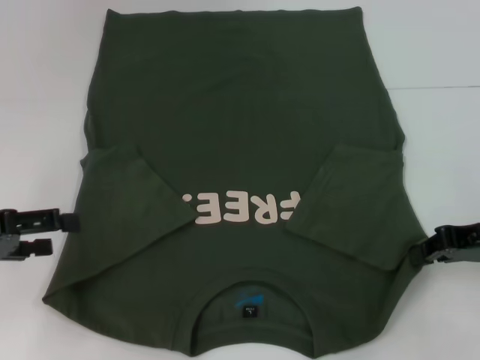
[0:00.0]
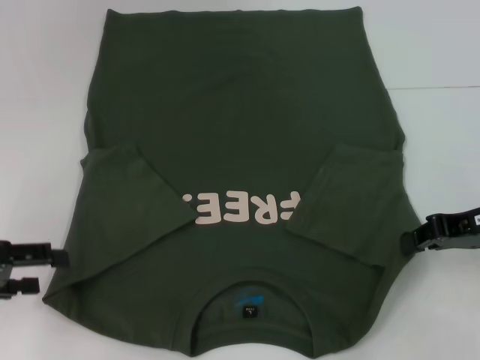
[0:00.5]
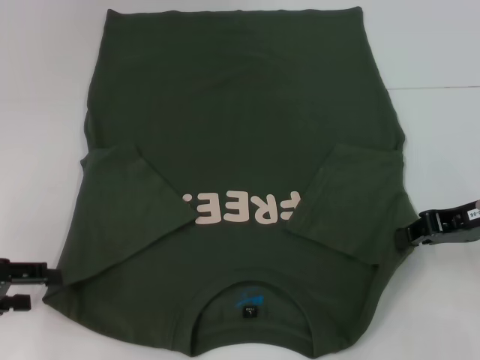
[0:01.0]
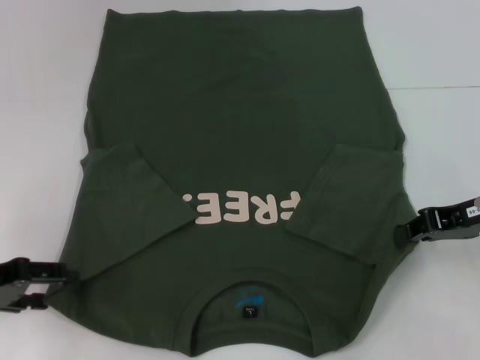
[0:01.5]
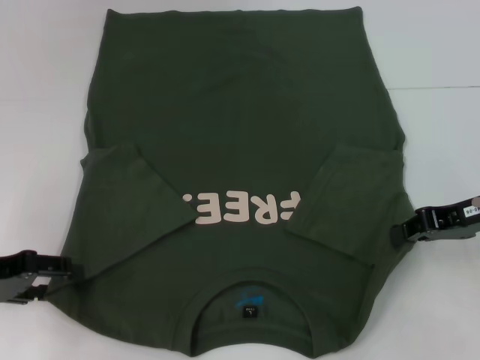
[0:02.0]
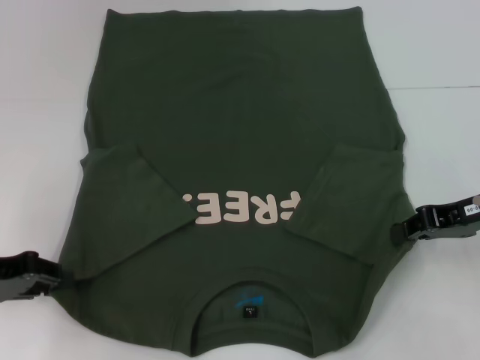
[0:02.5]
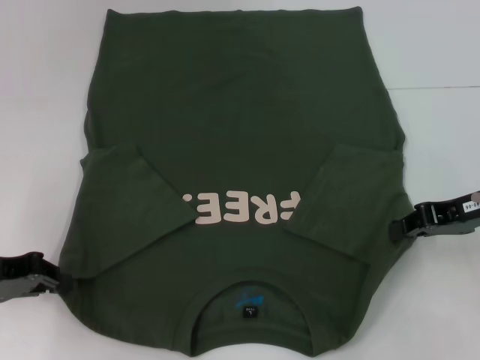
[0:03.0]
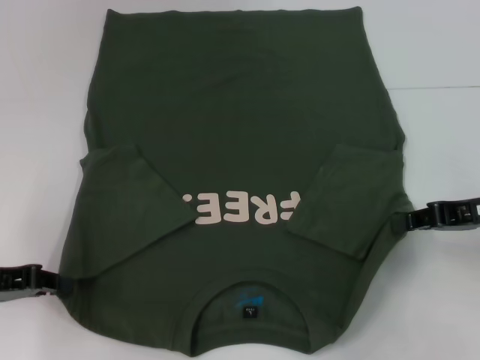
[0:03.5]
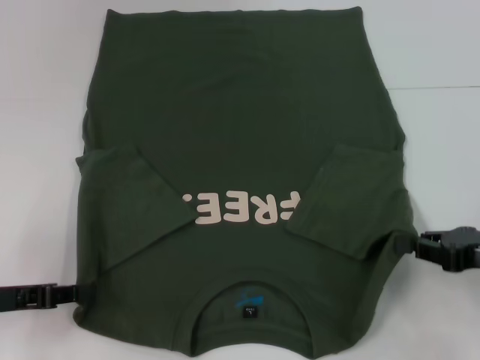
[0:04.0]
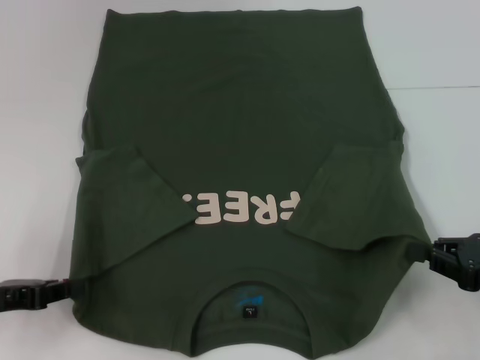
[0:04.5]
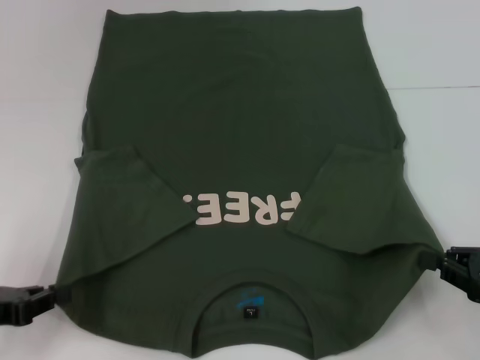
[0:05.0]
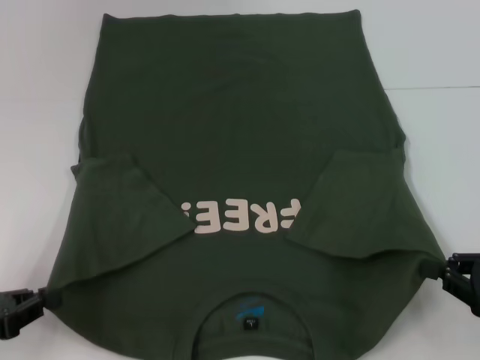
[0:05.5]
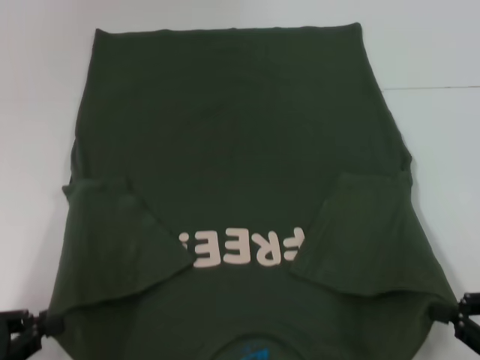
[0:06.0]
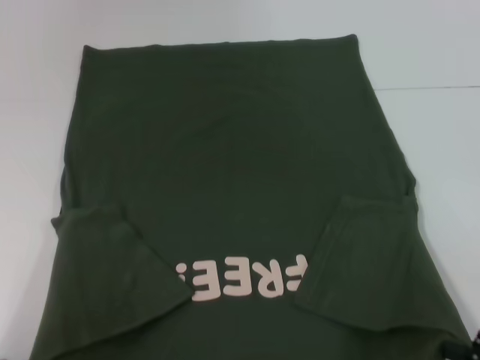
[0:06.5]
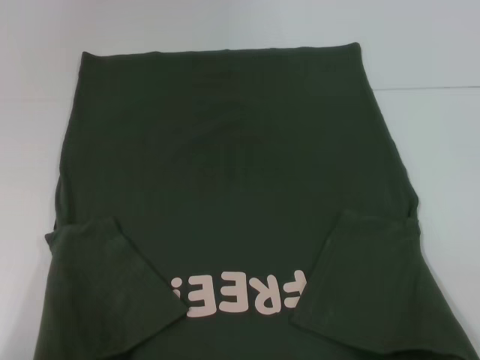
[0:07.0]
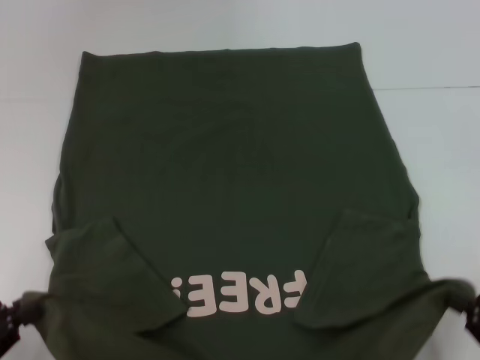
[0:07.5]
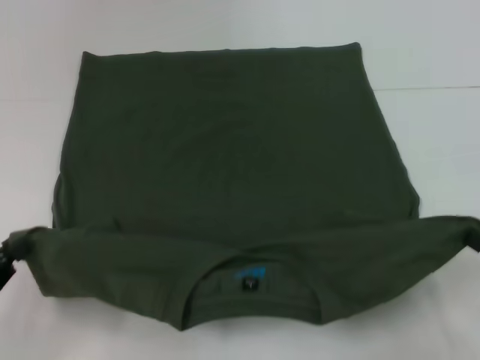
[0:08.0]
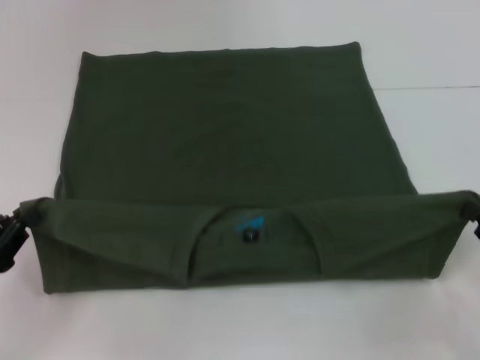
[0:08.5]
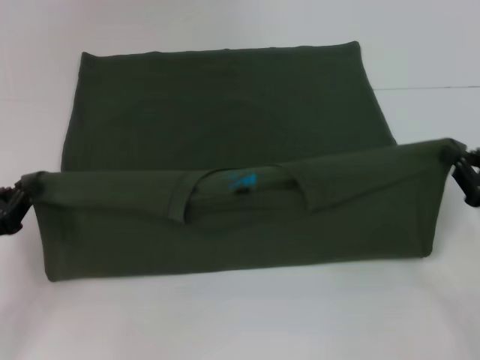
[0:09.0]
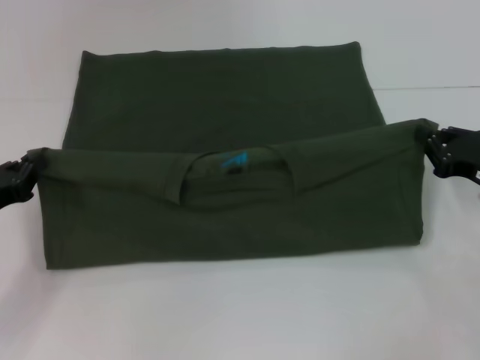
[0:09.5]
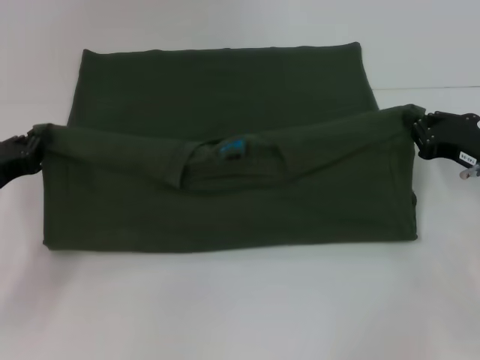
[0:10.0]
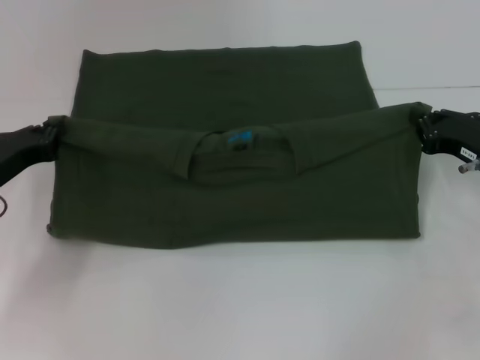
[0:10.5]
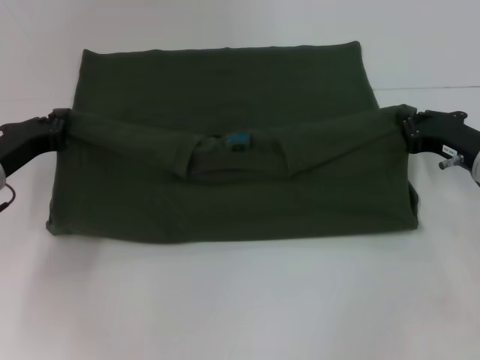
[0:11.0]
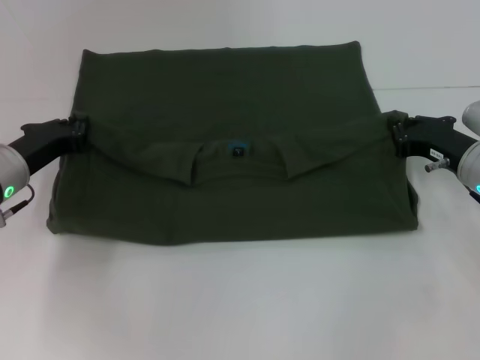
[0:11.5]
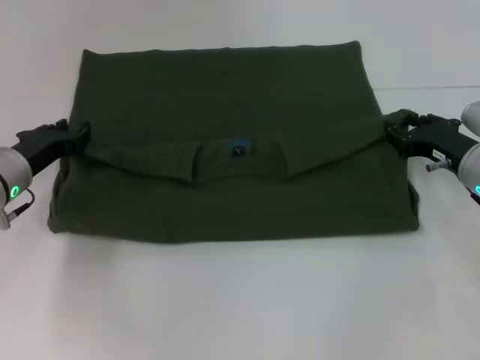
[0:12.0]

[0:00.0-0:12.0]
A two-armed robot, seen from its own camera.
Step, 0:00.0 to 0:05.0: Grab the bottom left corner with your left hand.
0:00.0 to 0:02.0: The grippers stay close to where they were, moving slightly.
0:02.0 to 0:04.0: The right gripper moves backward and downward, about 10 cm. The left gripper shifts by approximately 5 cm, and closes up.
0:04.0 to 0:06.0: Both grippers move backward, roughly 10 cm.
0:06.0 to 0:08.0: The right gripper travels backward and back again, some 10 cm each way.
0:08.0 to 0:10.0: Both grippers move forward, roughly 15 cm.
0:10.0 to 0:12.0: The left gripper shifts roughly 10 cm forward and to the right.

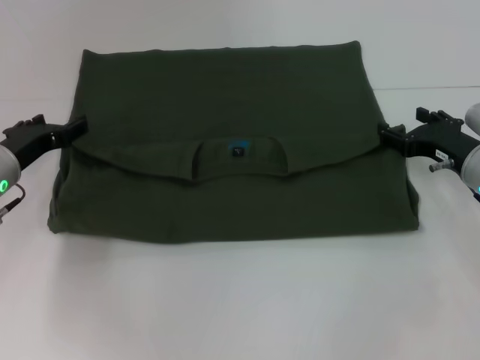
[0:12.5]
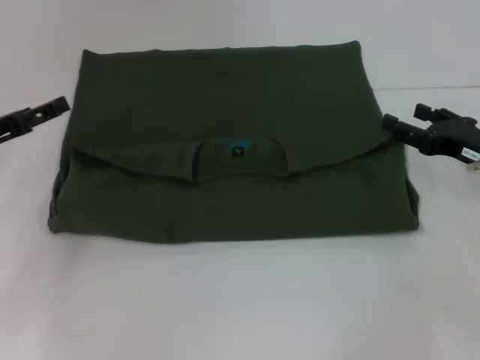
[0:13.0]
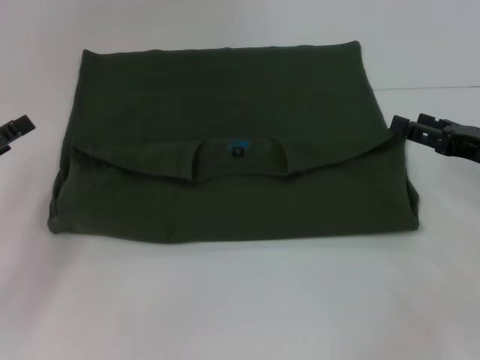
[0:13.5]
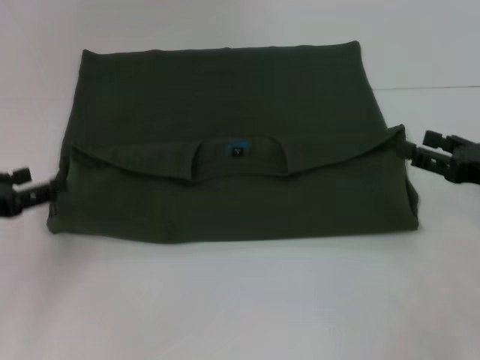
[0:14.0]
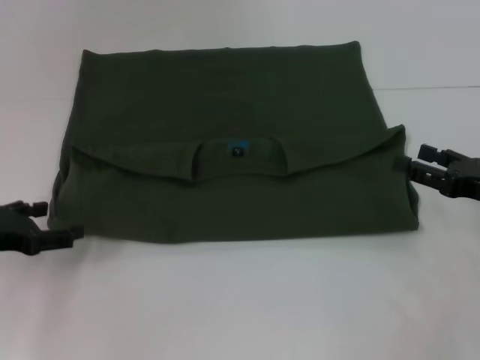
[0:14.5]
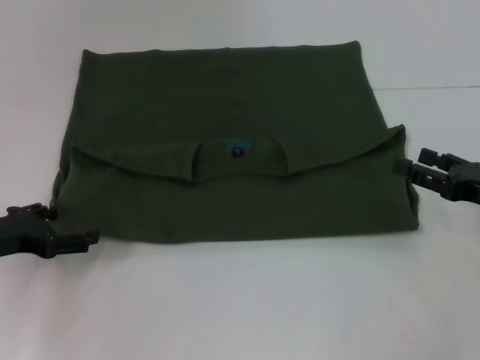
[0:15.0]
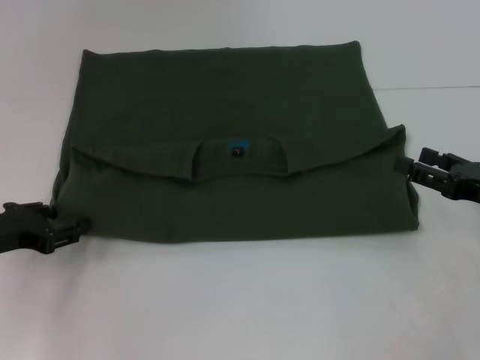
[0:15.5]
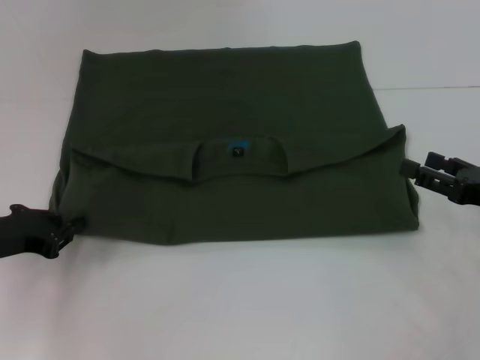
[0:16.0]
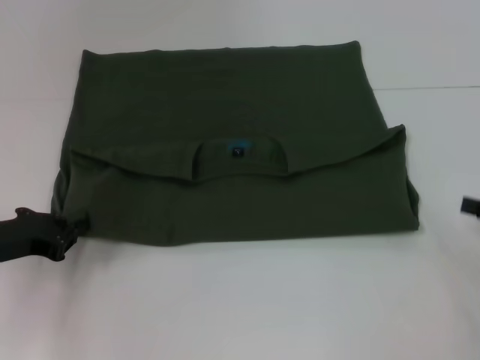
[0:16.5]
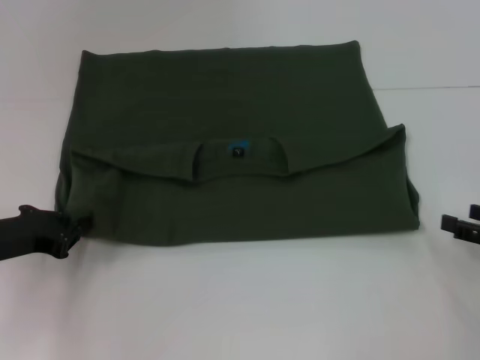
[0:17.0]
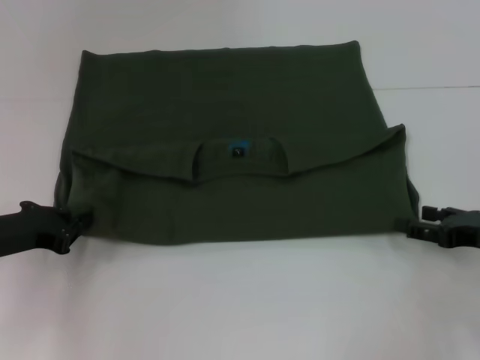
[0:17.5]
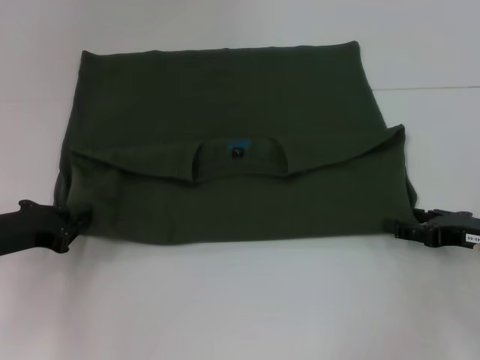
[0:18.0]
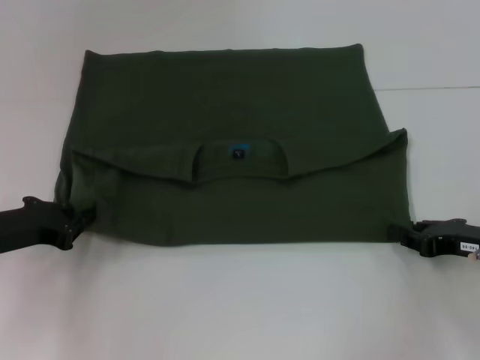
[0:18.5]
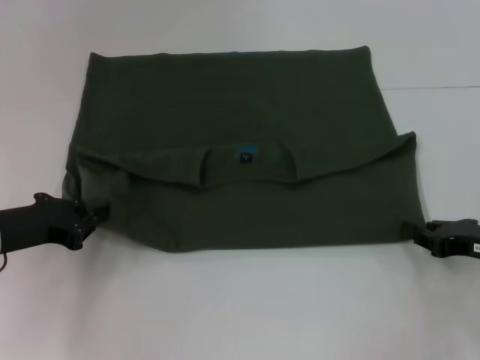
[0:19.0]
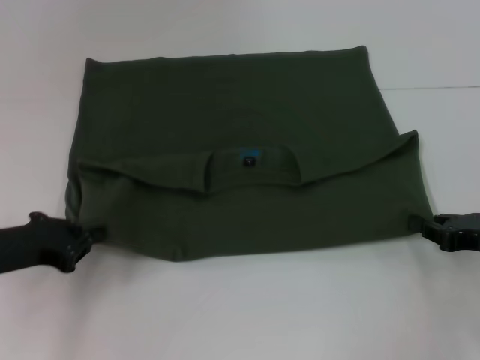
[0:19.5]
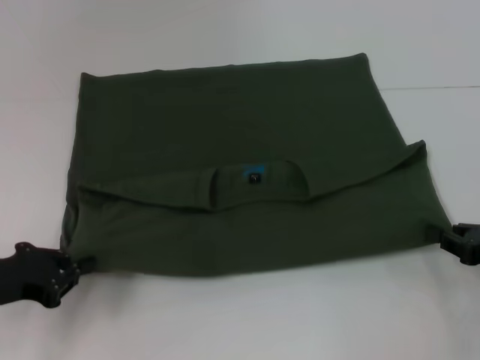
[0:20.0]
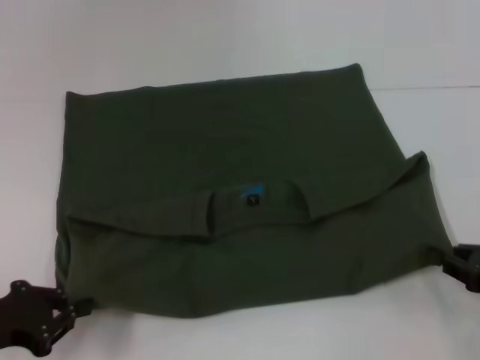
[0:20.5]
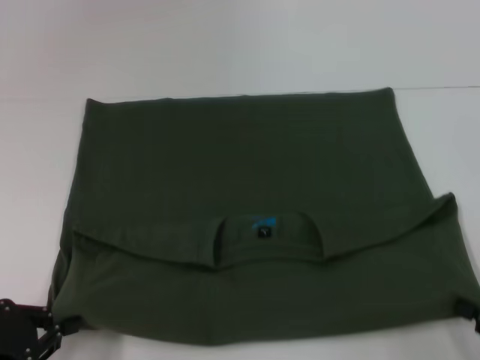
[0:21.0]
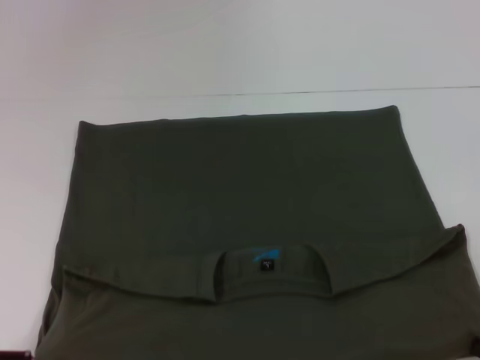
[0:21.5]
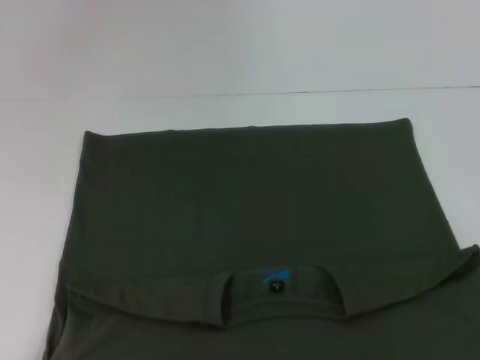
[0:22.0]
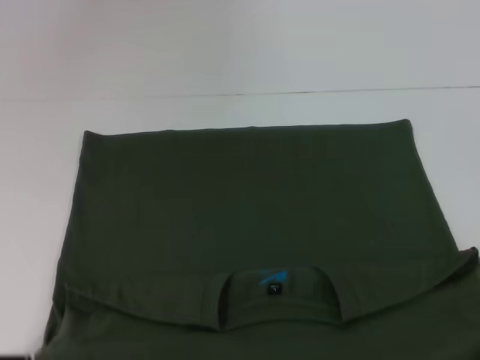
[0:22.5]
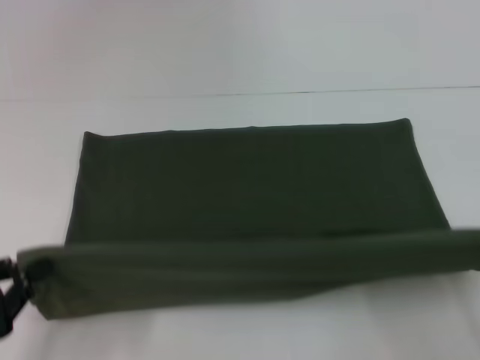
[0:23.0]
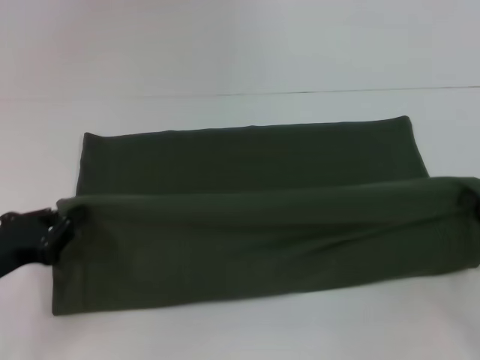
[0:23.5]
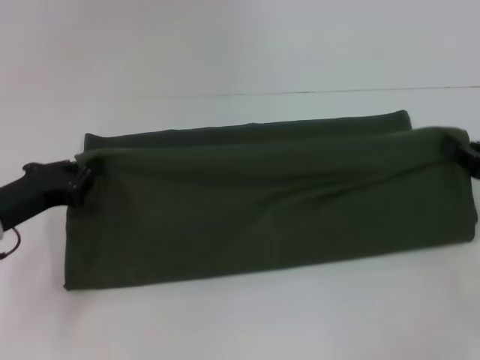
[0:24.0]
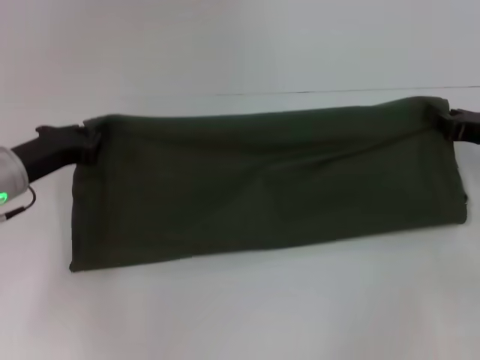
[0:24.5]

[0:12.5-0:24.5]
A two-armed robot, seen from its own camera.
Step, 0:12.5 to 0:21.5: Pull the clothes with your left hand.
Step, 0:12.5 to 0:21.5: Pull the clothes with your right hand.
0:12.5 to 0:14.5: The right gripper travels backward by roughly 5 cm, while the left gripper travels backward and to the left by some 10 cm.
0:14.5 to 0:16.5: The left gripper closes up; the right gripper is displaced to the right by some 5 cm.
0:16.5 to 0:18.5: The right gripper is displaced to the left and downward by approximately 10 cm, and closes.
0:18.5 to 0:20.5: The right gripper shifts approximately 5 cm backward, and closes its fingers. The left gripper shifts roughly 10 cm backward.
0:20.5 to 0:22.5: The right gripper is displaced backward by roughly 15 cm. Meanwhile the left gripper shifts roughly 10 cm backward.
0:22.5 to 0:24.5: The grippers both shift forward by approximately 25 cm.

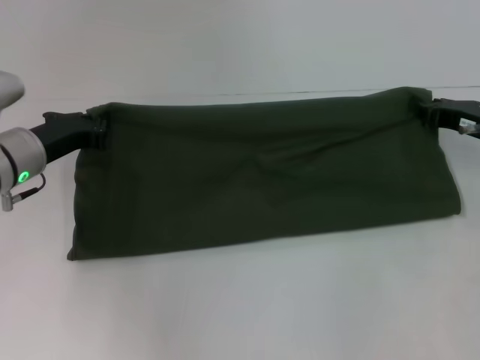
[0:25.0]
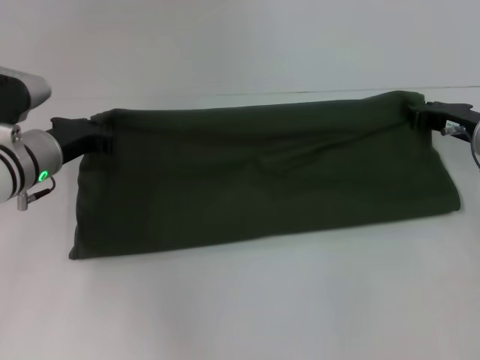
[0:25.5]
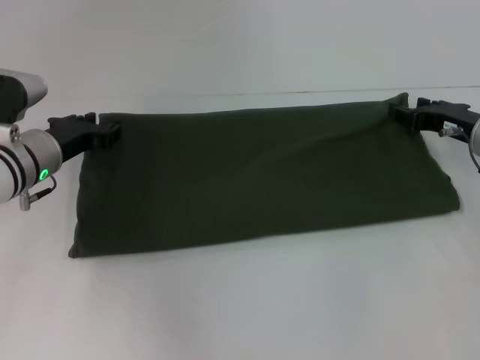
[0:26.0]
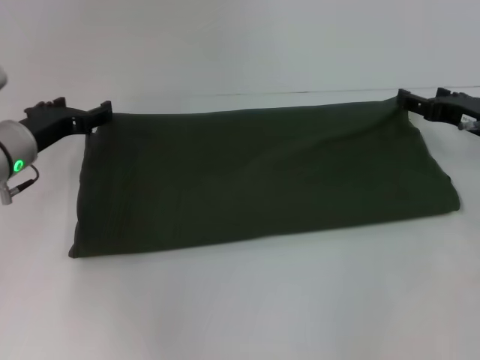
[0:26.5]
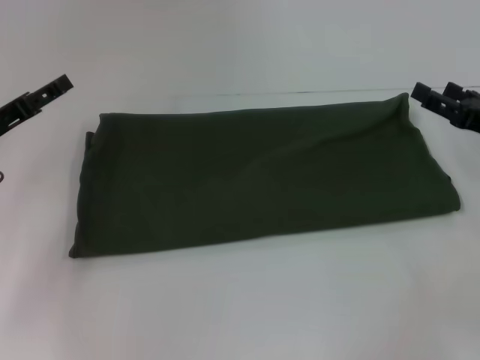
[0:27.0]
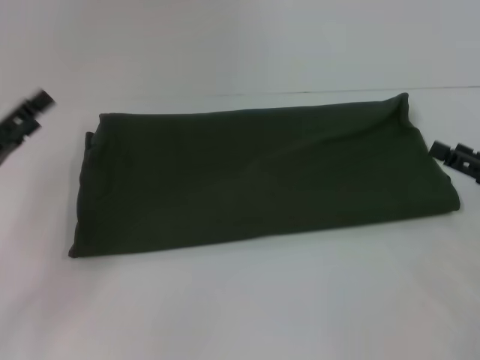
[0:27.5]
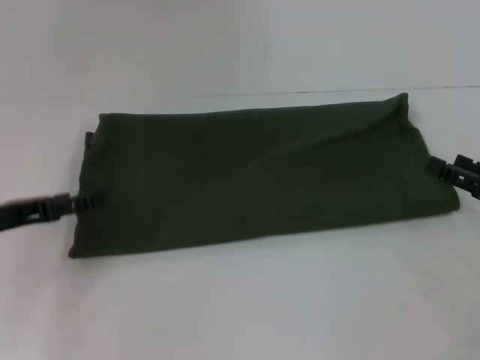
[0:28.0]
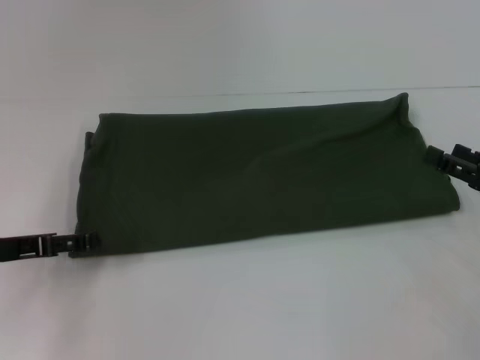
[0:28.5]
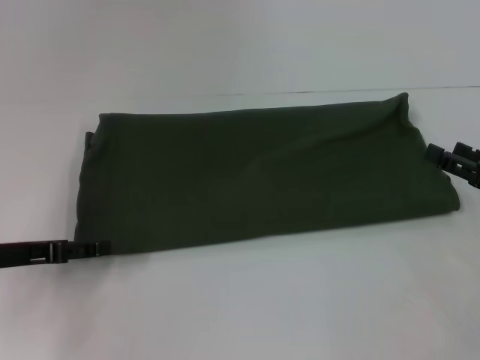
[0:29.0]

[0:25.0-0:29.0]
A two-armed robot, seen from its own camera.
0:25.0 to 0:27.0: The right gripper goes roughly 5 cm backward, and opens its fingers, while the left gripper heads to the left, covering some 5 cm, and opens its fingers.
0:27.0 to 0:29.0: The left gripper goes roughly 5 cm backward.
